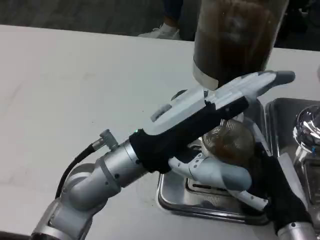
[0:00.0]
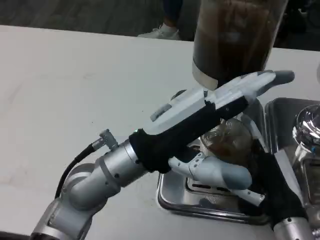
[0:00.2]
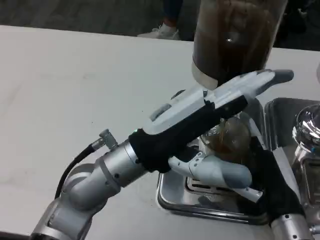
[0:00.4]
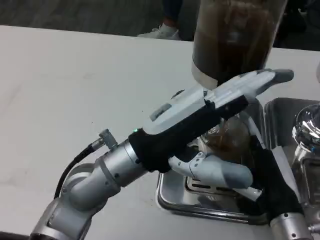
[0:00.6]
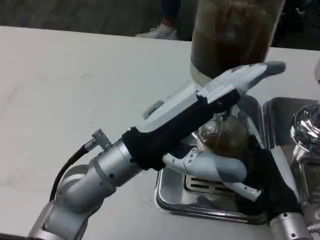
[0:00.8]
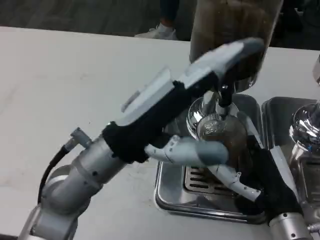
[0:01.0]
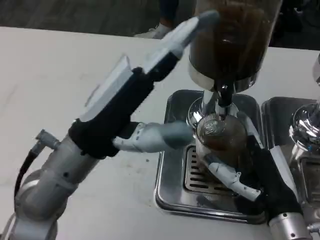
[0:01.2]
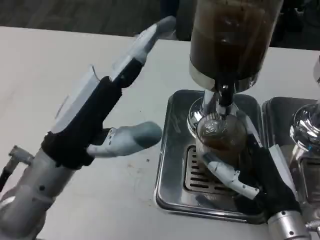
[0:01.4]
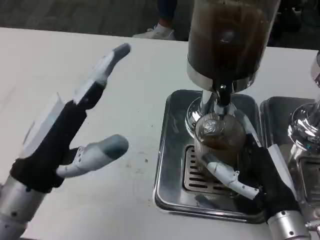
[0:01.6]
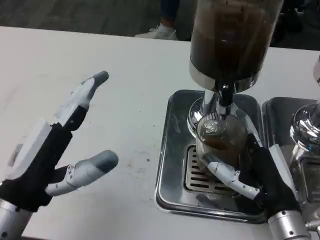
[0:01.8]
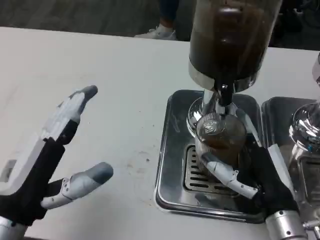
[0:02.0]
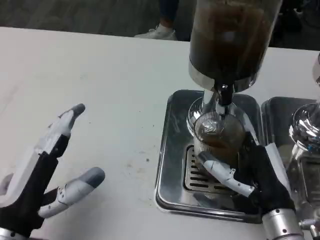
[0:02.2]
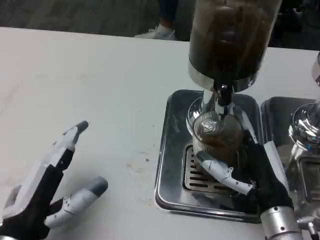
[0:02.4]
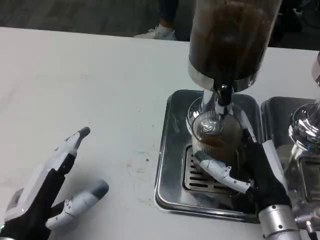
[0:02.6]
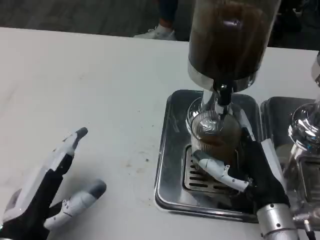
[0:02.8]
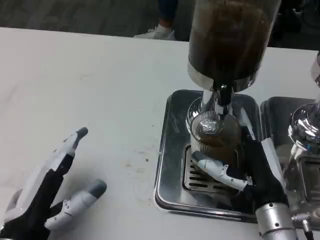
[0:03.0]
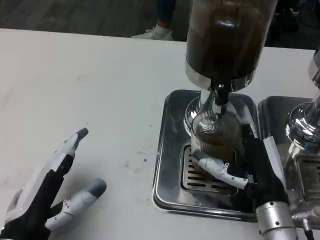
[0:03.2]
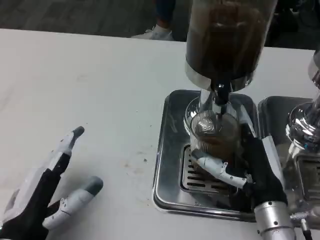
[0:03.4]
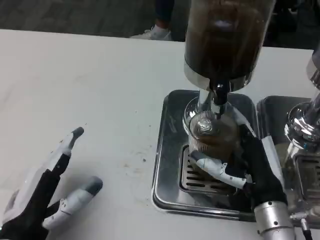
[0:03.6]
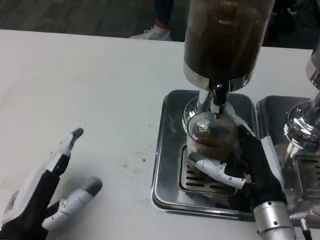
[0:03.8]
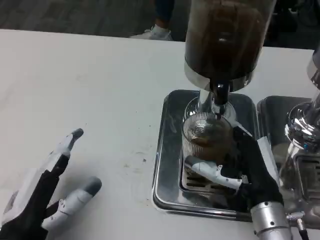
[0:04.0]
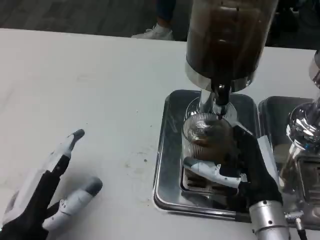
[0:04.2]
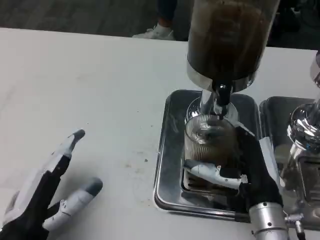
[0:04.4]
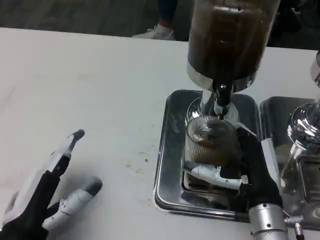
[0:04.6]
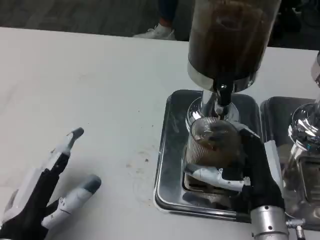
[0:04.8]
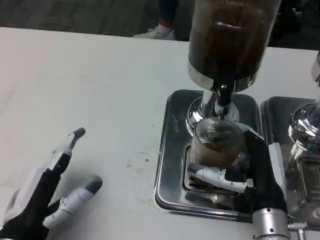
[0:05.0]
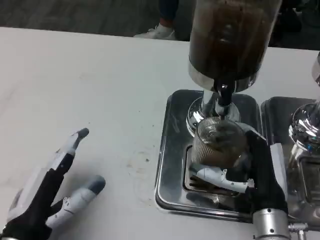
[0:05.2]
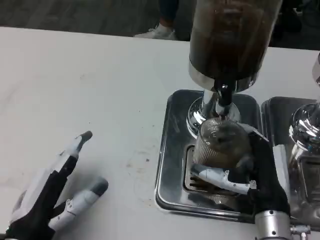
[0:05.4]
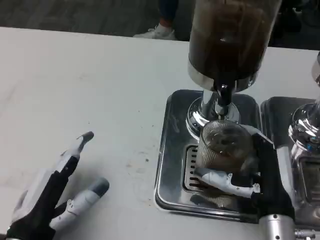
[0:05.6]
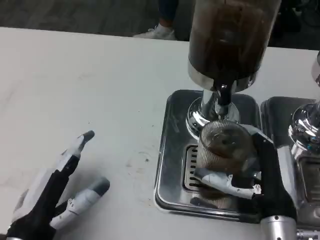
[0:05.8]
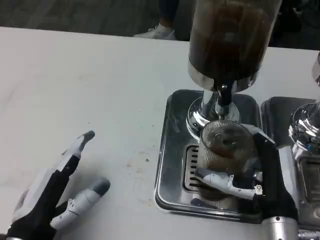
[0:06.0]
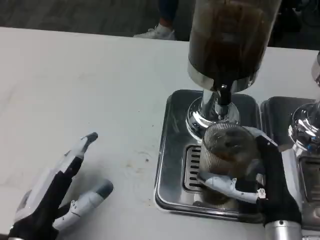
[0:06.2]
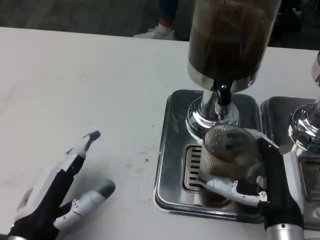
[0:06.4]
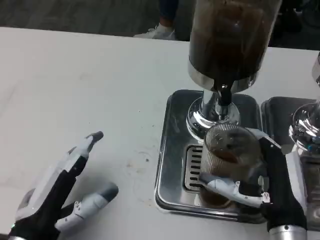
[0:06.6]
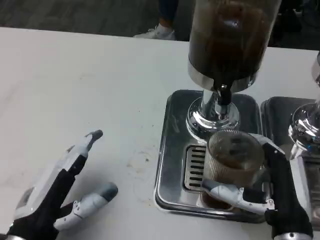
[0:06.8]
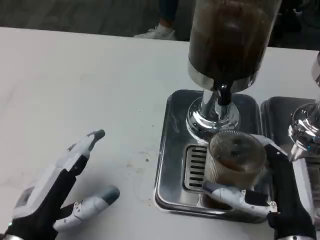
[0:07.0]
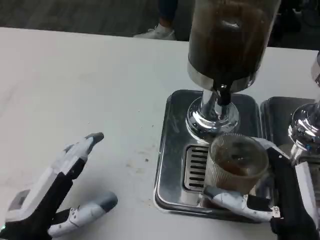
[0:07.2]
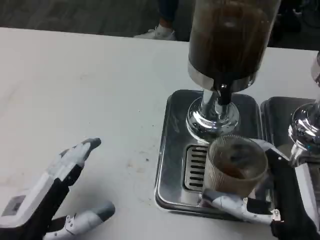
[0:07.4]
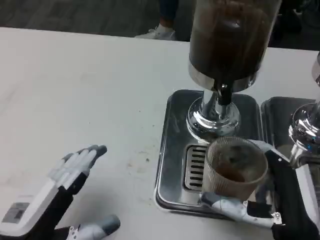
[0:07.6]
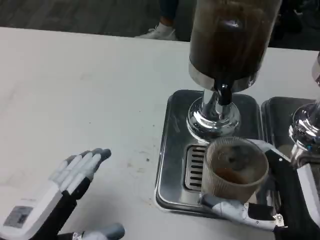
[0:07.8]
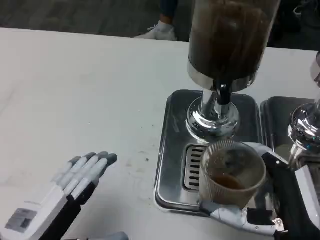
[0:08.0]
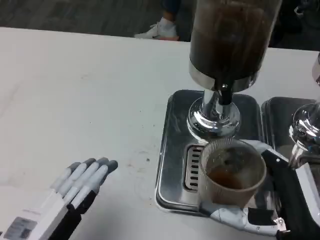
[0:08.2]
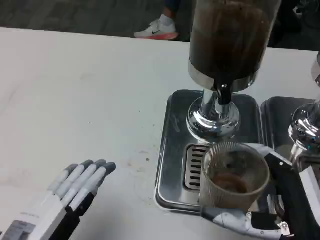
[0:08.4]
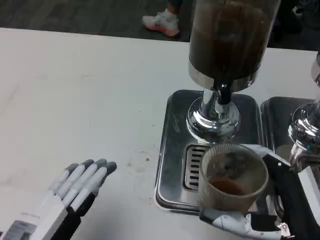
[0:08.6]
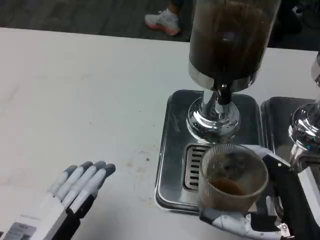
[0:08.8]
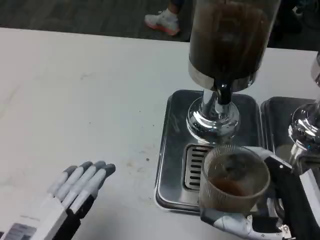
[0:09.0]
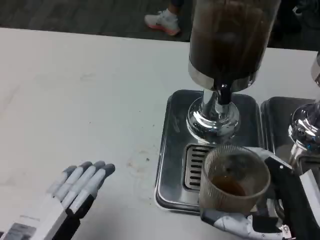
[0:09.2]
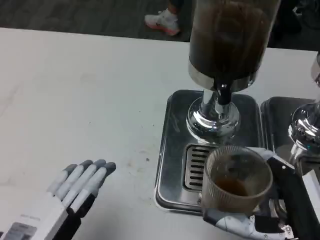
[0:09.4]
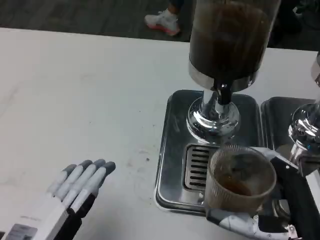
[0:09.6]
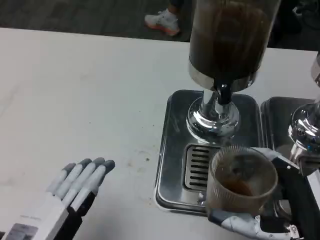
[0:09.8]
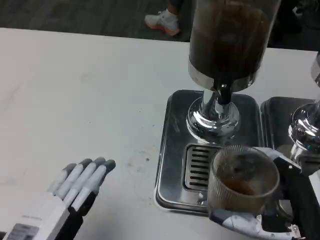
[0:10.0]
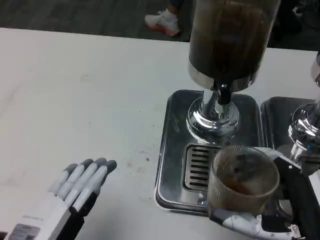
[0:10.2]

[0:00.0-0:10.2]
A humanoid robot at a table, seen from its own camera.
Task of the whole recording: Grasp the cup under the faucet to collect the drink, then remove the cup.
0:00.0 to 0:01.4: The left hand goes approximately 10 cm to the left.
0:01.4 to 0:03.0: The left hand heads downward, backward and to the left, covering about 15 cm.
0:03.0 to 0:05.8: The hands move only a little.
0:05.8 to 0:07.2: The hands move only a little.
0:07.2 to 0:08.8: The left hand changes place by roughly 5 cm.
0:08.8 to 0:10.2: Both hands stay put.

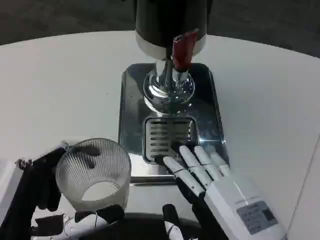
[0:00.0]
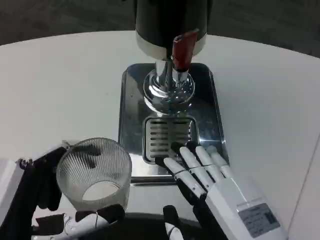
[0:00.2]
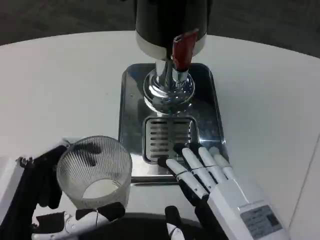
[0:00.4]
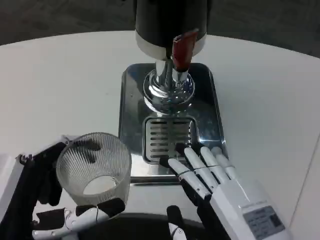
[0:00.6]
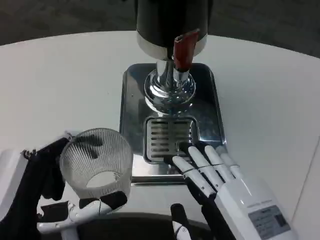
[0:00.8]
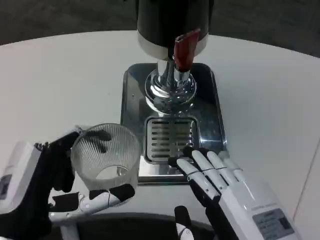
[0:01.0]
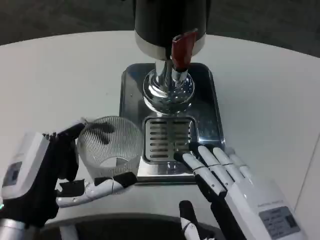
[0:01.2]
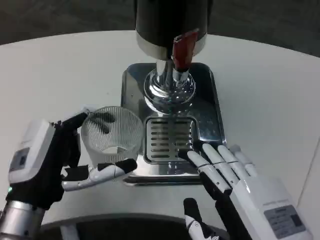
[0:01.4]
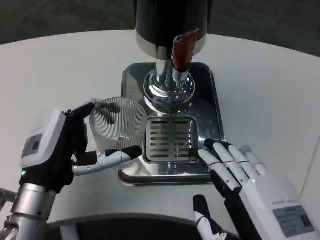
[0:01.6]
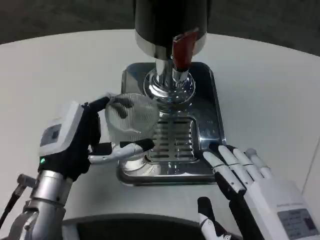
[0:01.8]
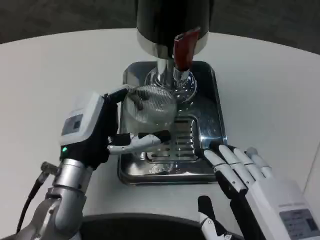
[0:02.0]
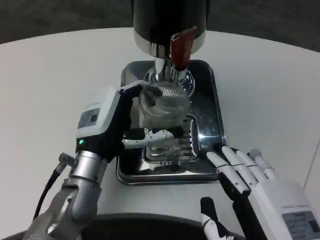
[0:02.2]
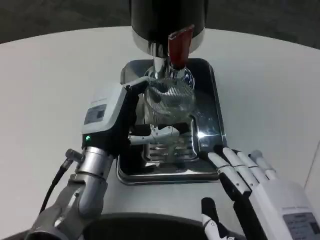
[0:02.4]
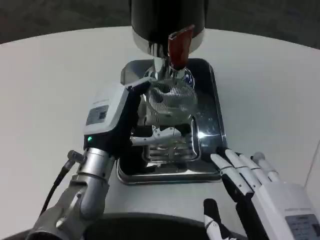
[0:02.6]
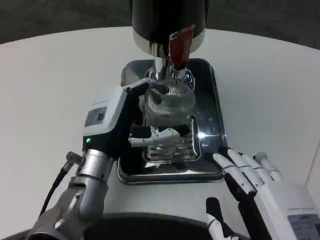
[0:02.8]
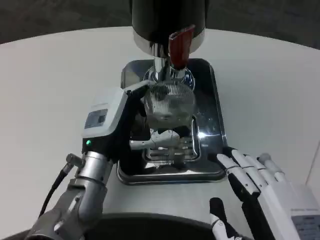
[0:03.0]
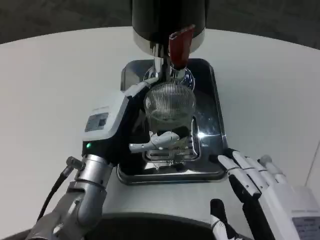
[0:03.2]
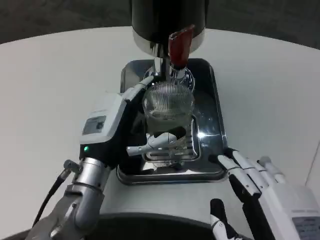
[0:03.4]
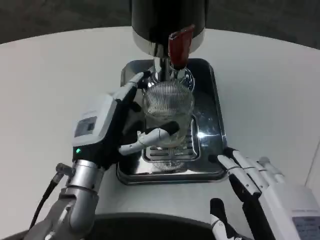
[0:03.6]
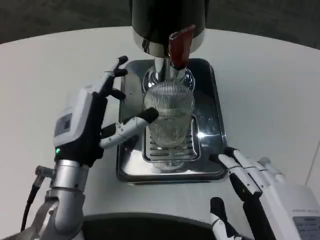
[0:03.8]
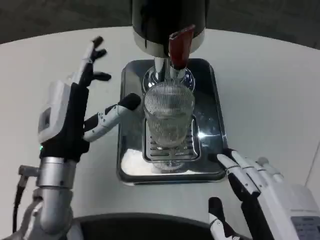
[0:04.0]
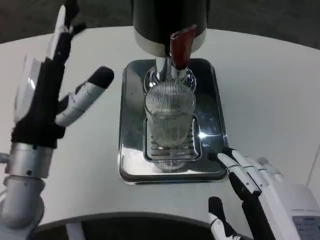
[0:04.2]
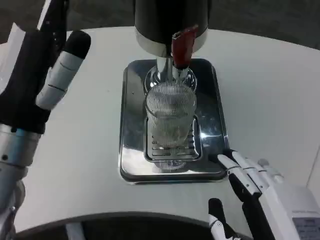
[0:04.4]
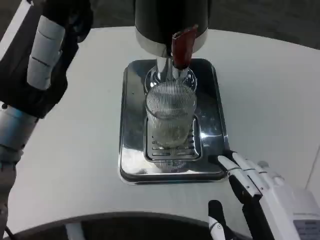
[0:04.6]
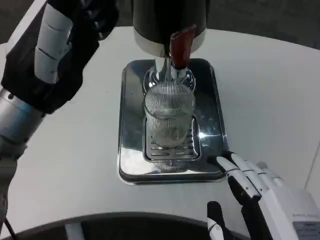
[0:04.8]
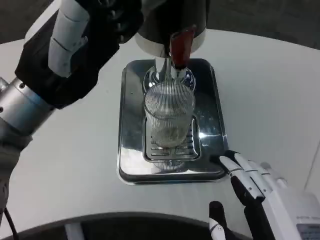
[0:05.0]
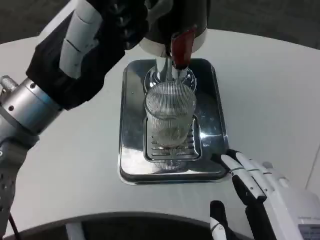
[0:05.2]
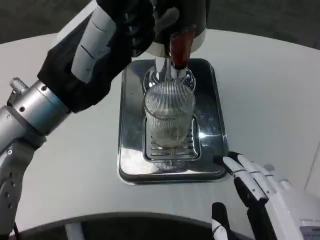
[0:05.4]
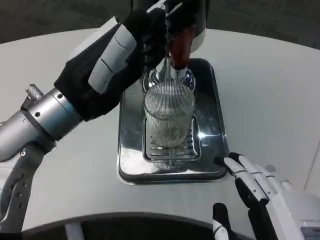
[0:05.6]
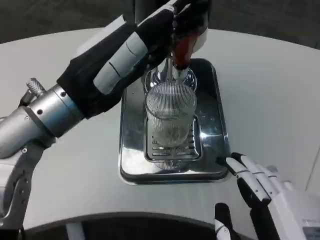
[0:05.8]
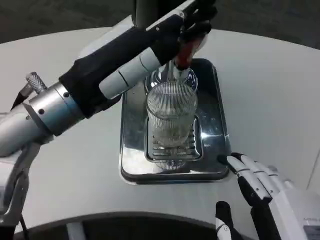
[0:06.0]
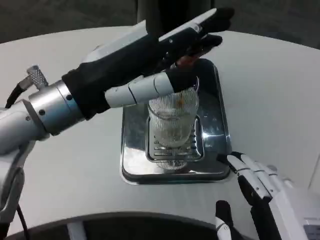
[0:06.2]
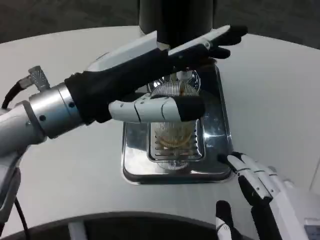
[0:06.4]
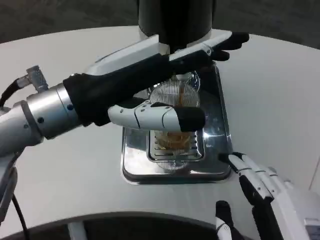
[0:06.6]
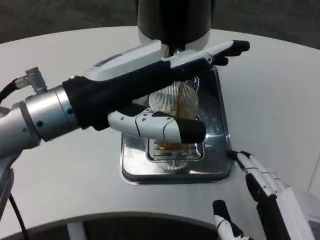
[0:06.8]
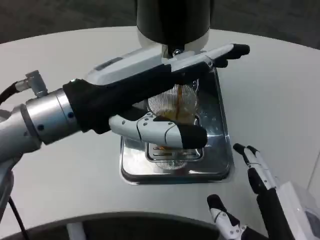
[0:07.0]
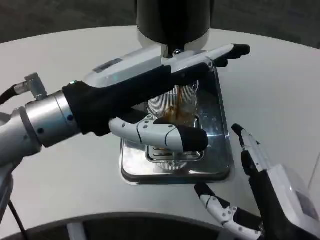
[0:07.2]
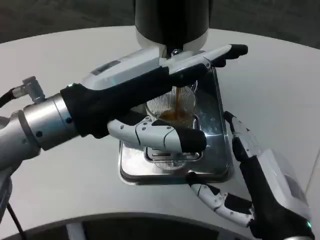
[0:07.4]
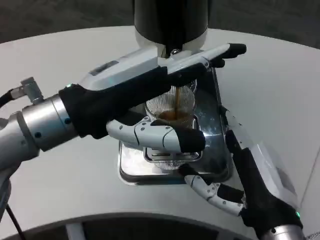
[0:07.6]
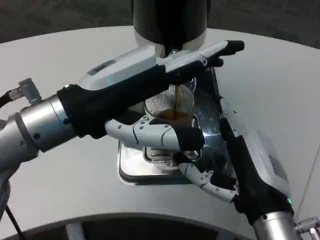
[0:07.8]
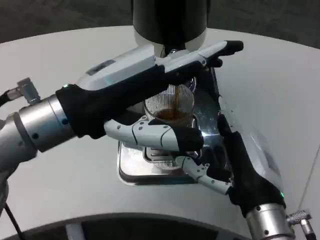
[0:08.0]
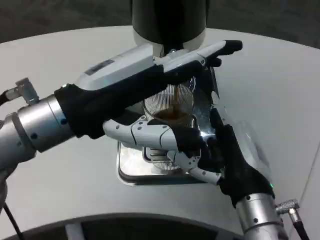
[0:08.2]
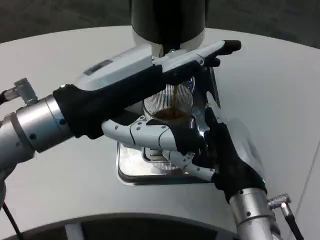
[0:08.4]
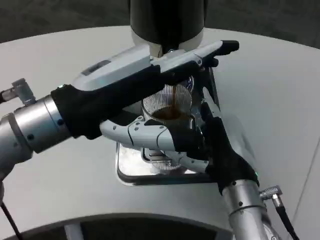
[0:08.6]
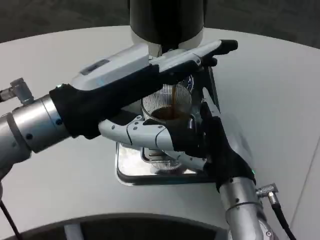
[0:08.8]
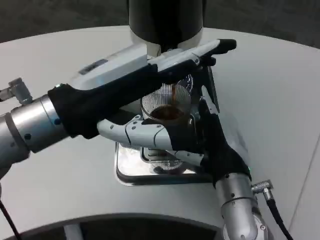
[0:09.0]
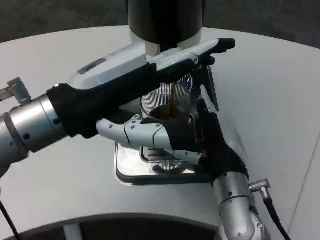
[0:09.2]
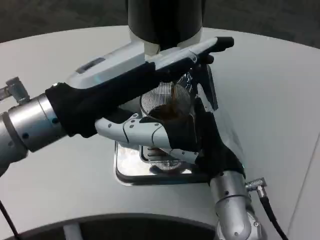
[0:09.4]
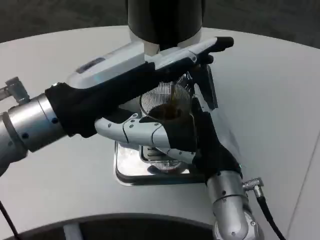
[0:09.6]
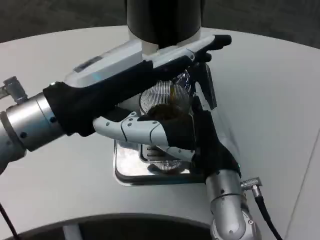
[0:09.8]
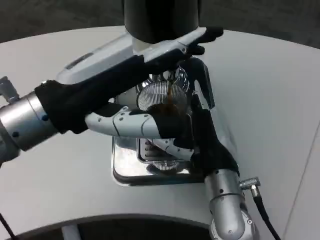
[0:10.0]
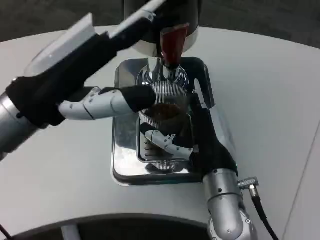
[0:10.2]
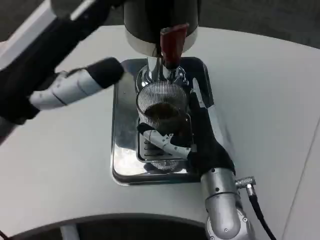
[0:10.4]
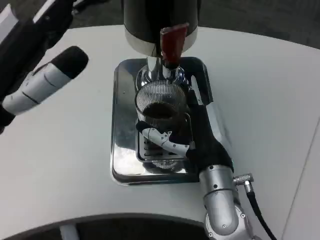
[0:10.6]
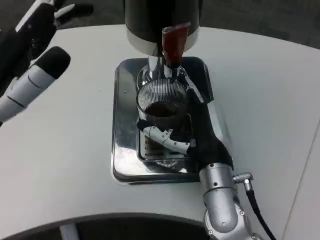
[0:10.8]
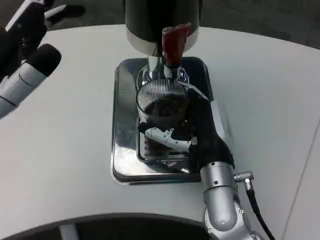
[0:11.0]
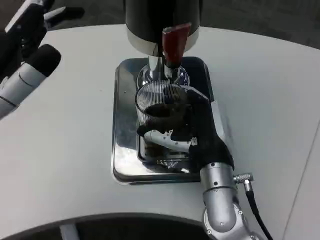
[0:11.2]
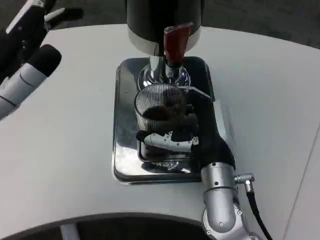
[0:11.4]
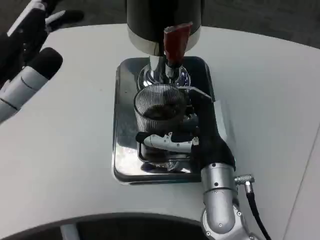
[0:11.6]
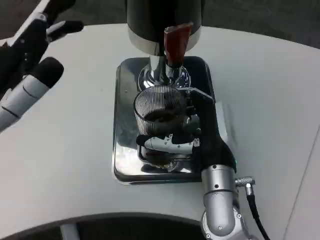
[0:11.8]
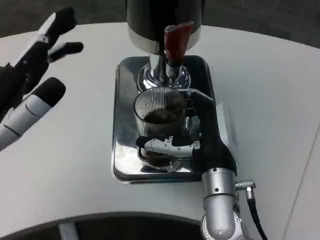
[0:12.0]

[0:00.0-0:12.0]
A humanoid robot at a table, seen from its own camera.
Task of the whole recording: Grasp the cup under the faucet to collect the drink, then remove the cup.
0:00.0 to 0:01.6: The left hand is displaced forward by roughly 10 cm.
0:01.6 to 0:03.0: The left hand goes roughly 10 cm to the right and forward.
0:03.0 to 0:04.4: The left hand moves upward, to the left and backward, some 15 cm.
0:04.4 to 0:06.0: The left hand heads upward, covering roughly 5 cm.
0:06.0 to 0:07.6: The right hand is displaced forward by some 10 cm.
0:07.6 to 0:09.0: The right hand shifts approximately 10 cm forward.
0:10.4 to 0:12.0: The left hand moves about 5 cm.
